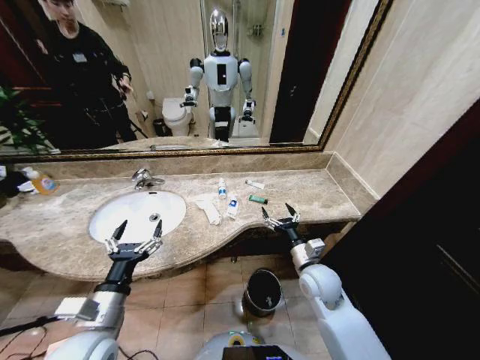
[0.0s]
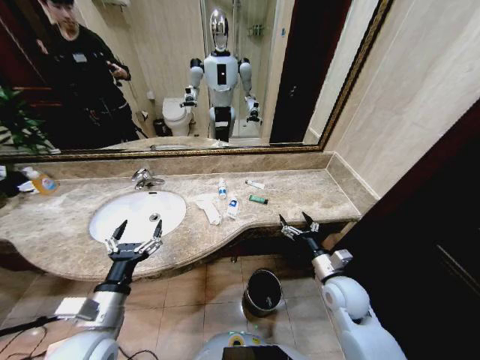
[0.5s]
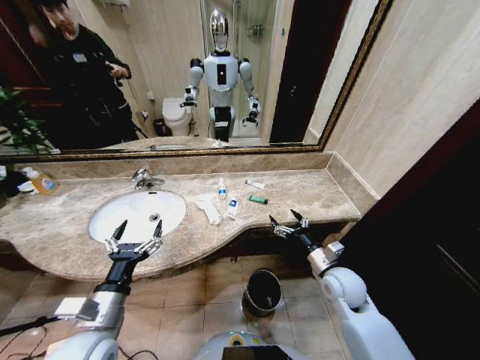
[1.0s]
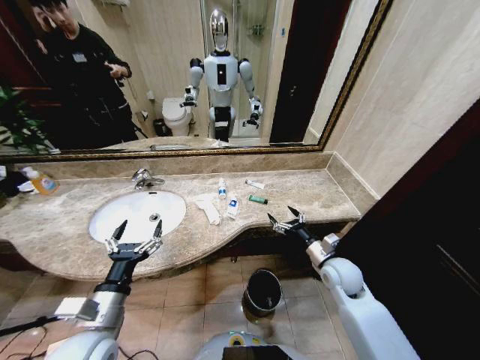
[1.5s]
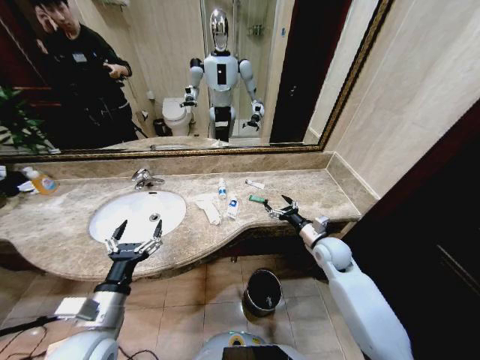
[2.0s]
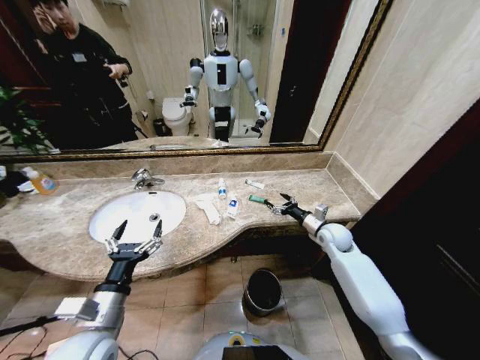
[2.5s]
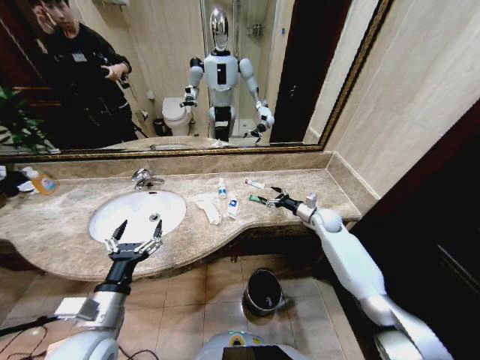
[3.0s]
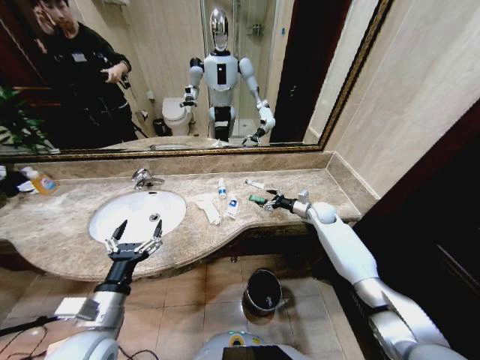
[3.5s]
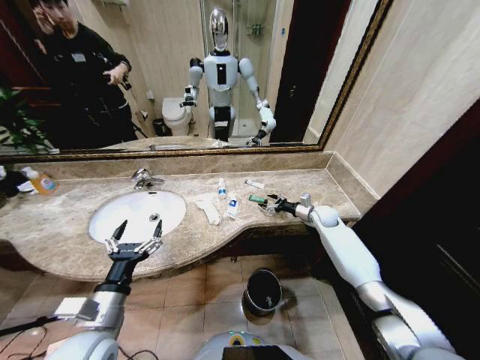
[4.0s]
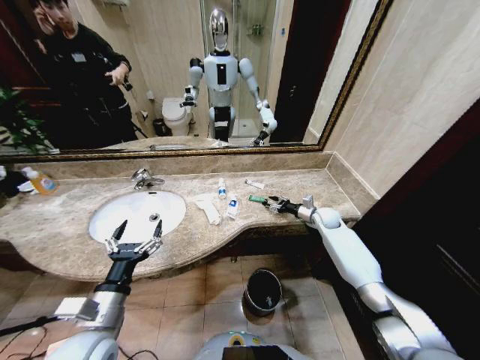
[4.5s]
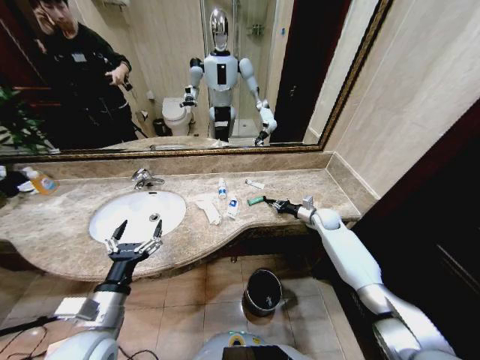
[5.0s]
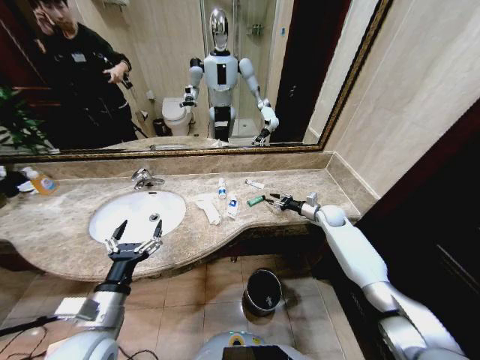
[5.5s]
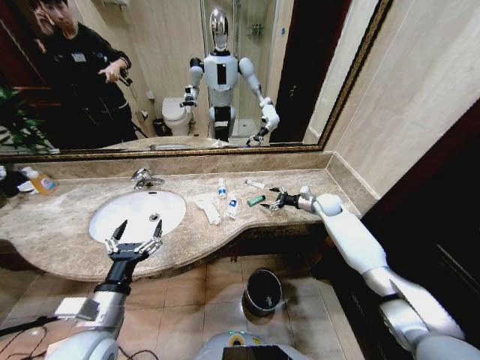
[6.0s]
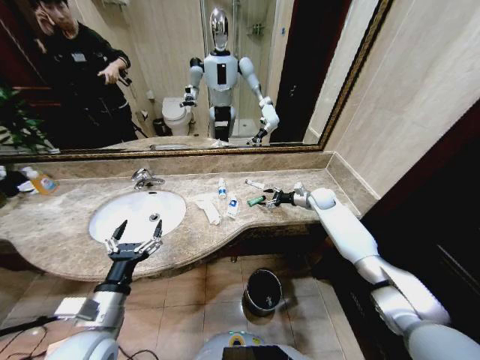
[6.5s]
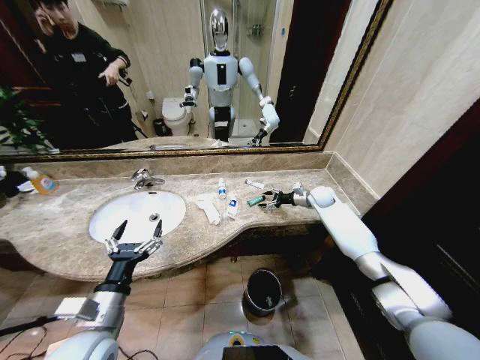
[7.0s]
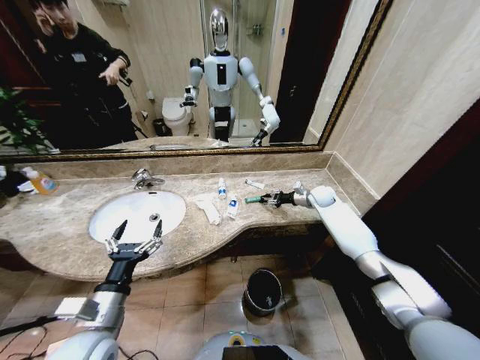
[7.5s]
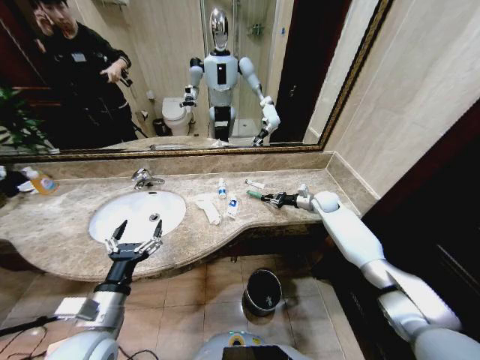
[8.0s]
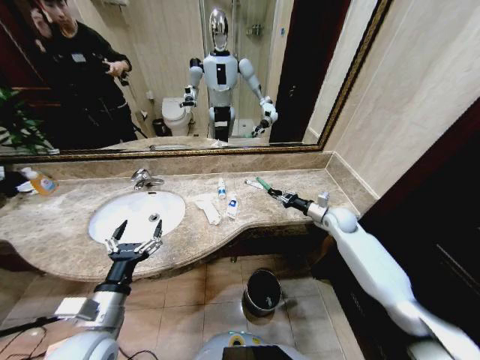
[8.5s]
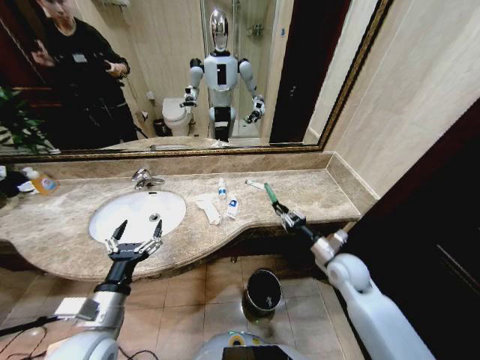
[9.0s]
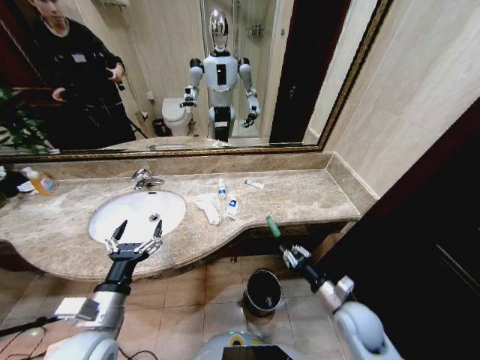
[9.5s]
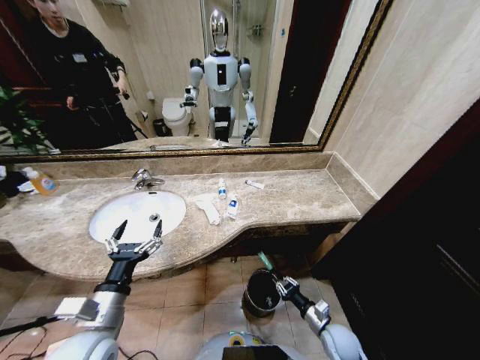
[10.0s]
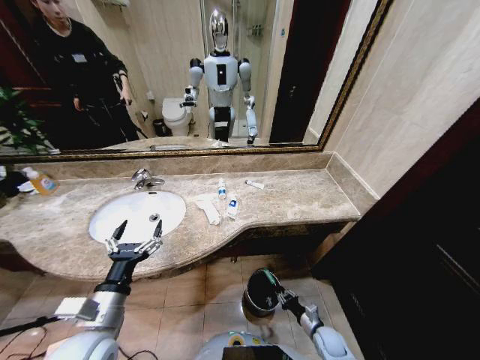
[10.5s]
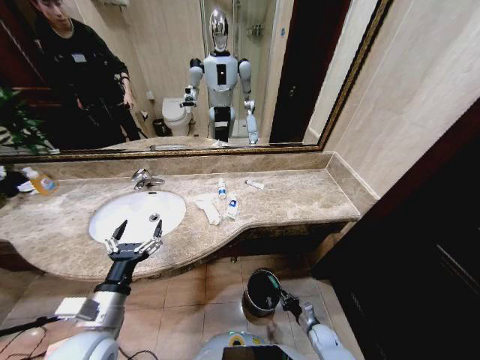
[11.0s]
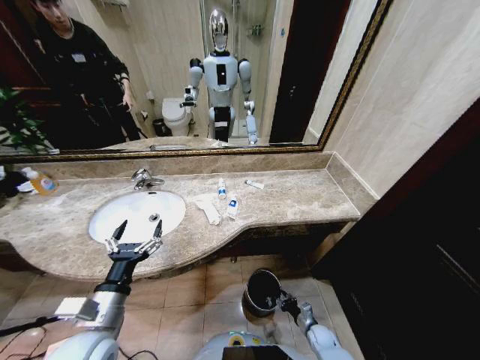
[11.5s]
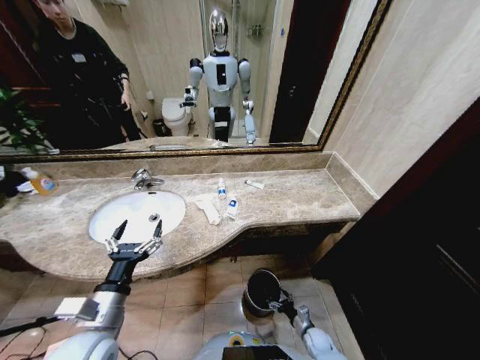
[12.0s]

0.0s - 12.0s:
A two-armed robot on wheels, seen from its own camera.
Task of the whole recording: Pick up the trash from the sink and place it in the trash bin.
2.0s - 4.0s: The right gripper travels forward by roughly 15 cm.
4.0s - 6.0s: The right gripper ends up some 5 cm from where it was, and closes, then opens again.
6.0s - 8.0s: The right gripper closes its fingers.
8.0s - 10.0s: The right gripper is displaced backward and downward by about 40 cm.
10.0s - 12.0s: The right gripper moves downward, some 15 cm, and opens up.

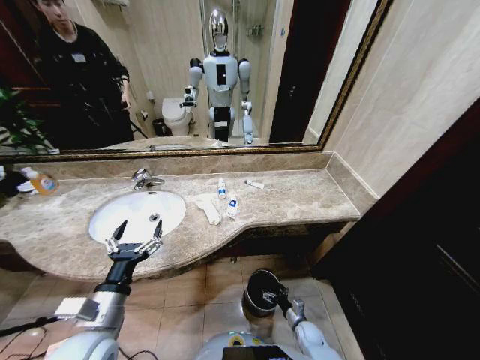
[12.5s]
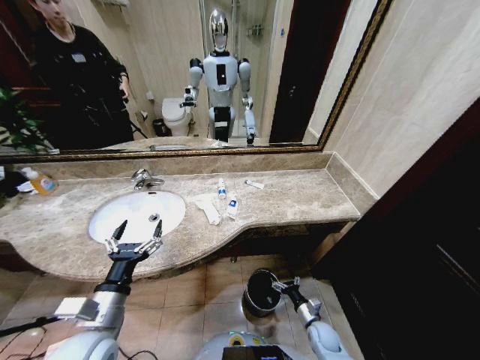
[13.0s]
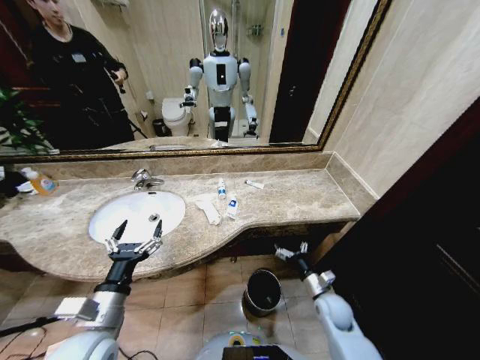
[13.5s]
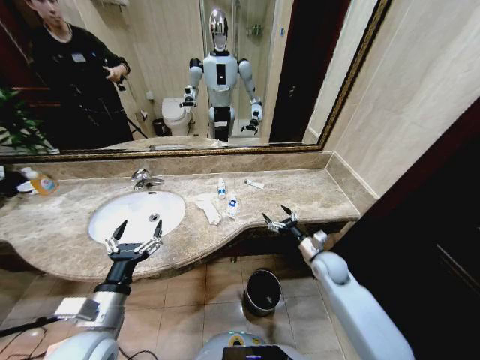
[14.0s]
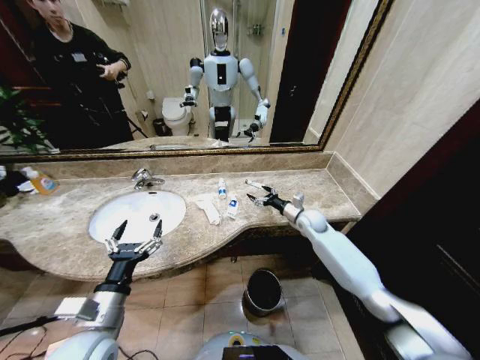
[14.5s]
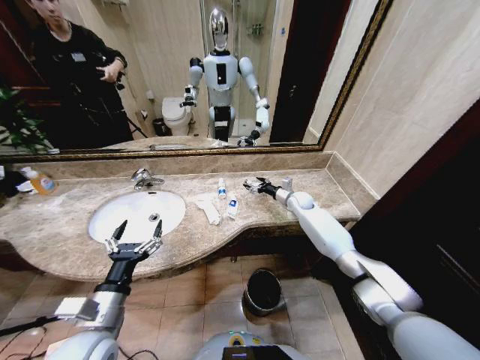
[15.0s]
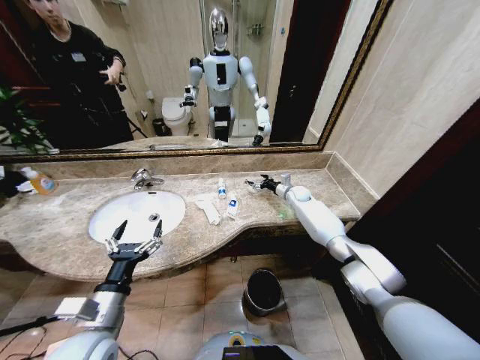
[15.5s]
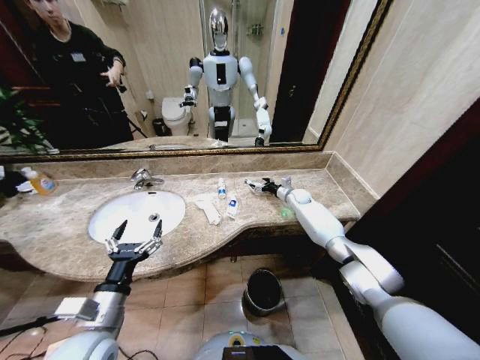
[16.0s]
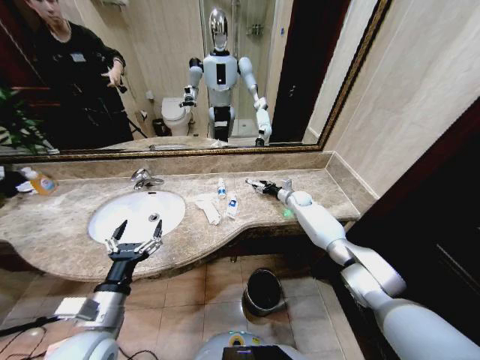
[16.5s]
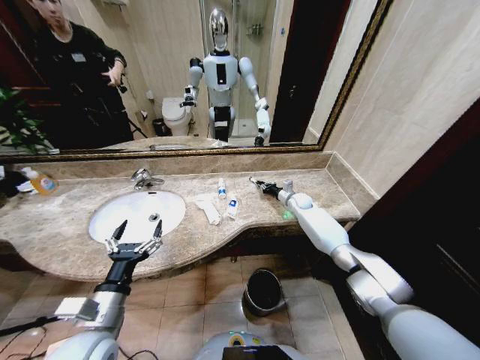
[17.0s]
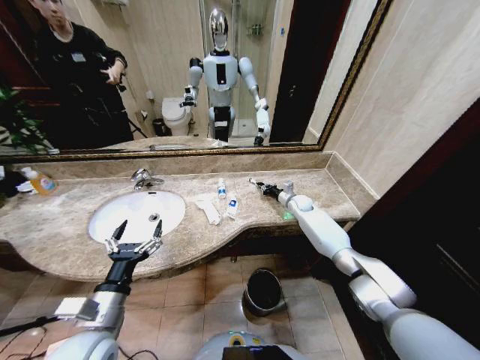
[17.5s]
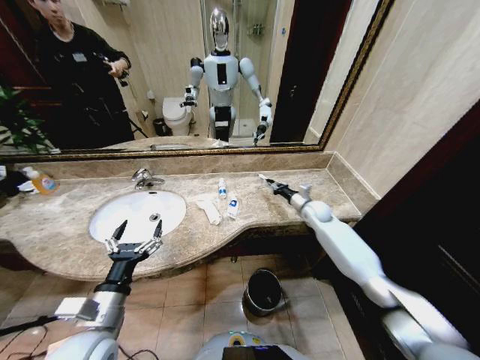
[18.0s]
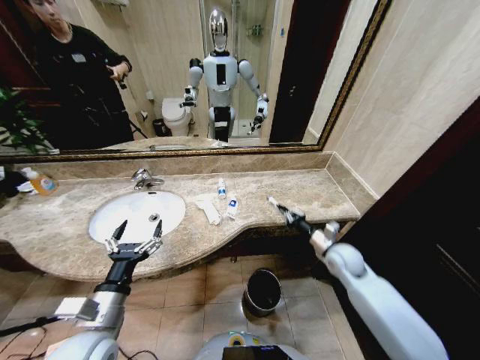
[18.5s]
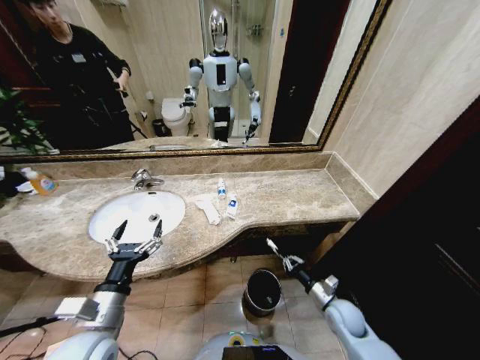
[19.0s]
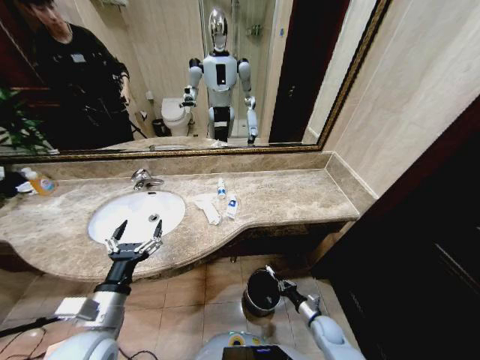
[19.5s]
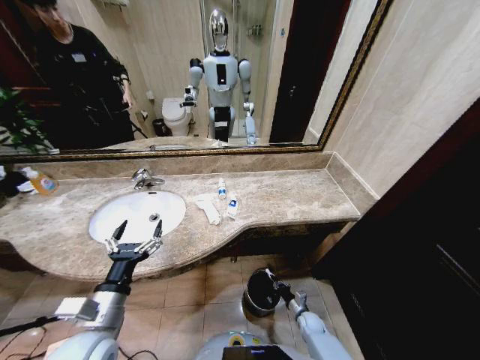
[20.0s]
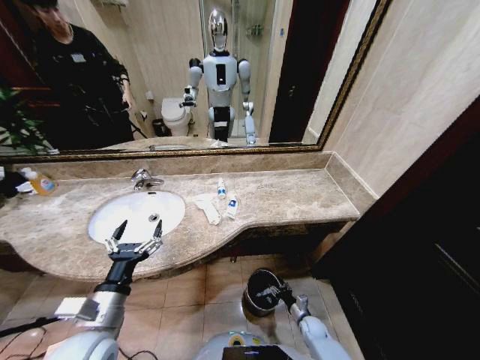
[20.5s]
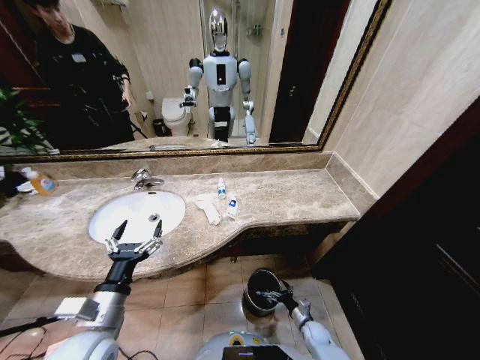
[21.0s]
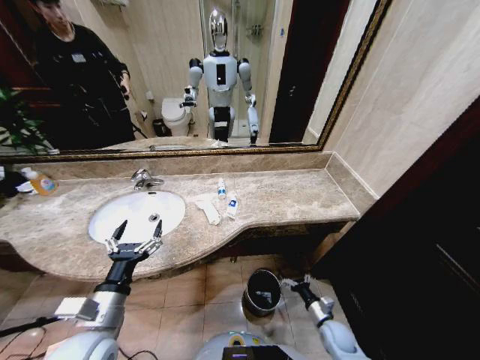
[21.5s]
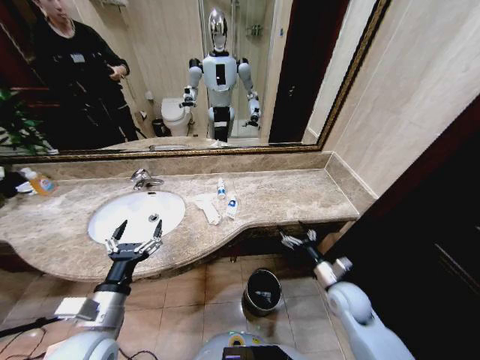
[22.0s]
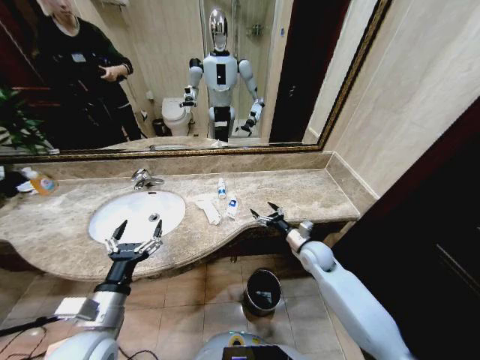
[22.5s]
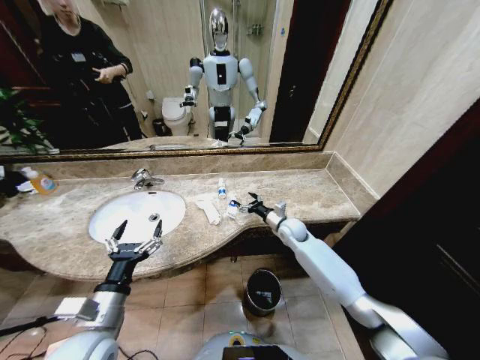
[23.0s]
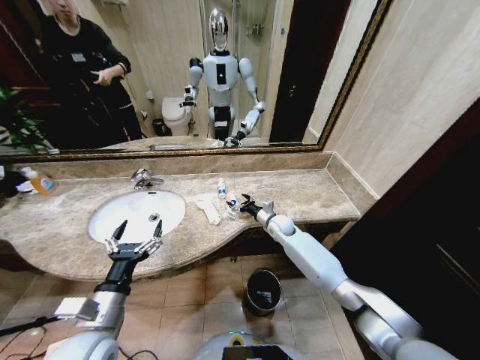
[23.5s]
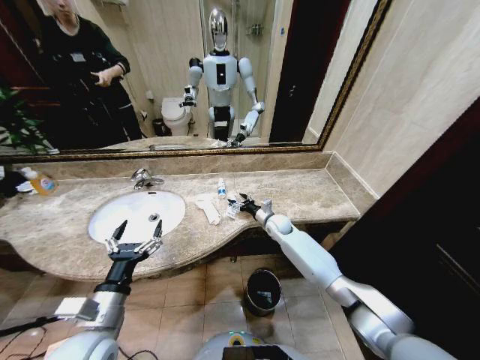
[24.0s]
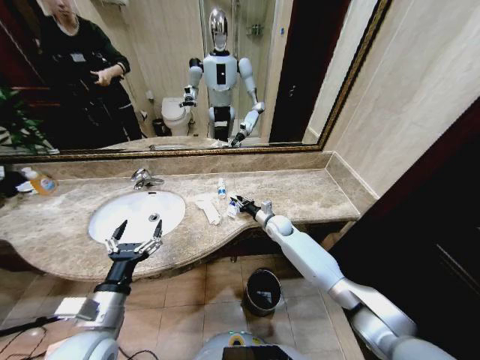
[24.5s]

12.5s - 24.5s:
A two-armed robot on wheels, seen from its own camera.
Task of the whole recording: Pick up the trash from the sink and place it in the trash bin.
12.5s - 14.5s: The right gripper travels upward and forward by roughly 40 cm.
14.5s - 16.5s: The right gripper goes about 15 cm forward, and closes up.
16.5s - 18.5s: The right gripper travels backward by about 30 cm, and closes.
18.5s - 20.5s: The right gripper shifts about 35 cm downward, and opens up.
20.5s - 22.5s: The right gripper moves upward and forward, approximately 35 cm, and opens its fingers.
22.5s - 24.5s: The right gripper is displaced forward and to the left by some 15 cm, and closes its fingers.

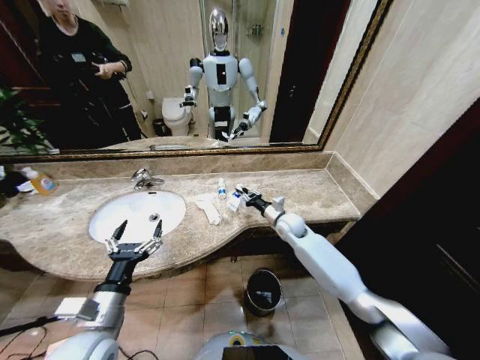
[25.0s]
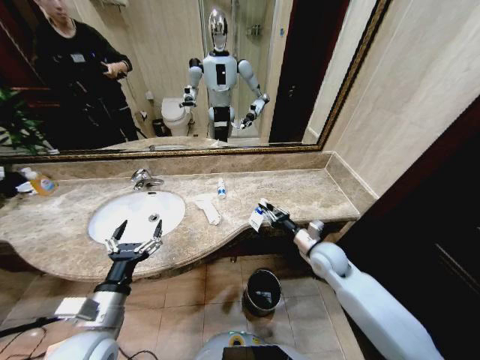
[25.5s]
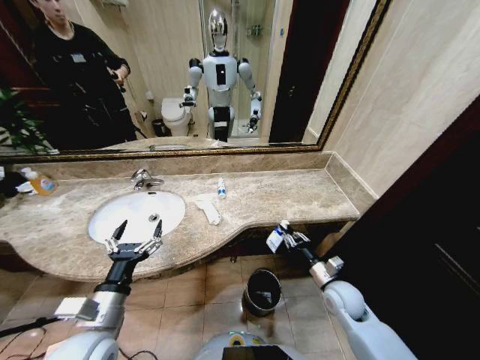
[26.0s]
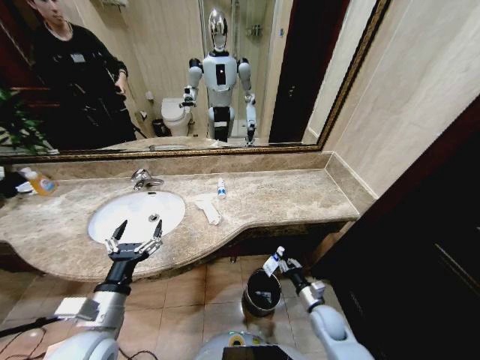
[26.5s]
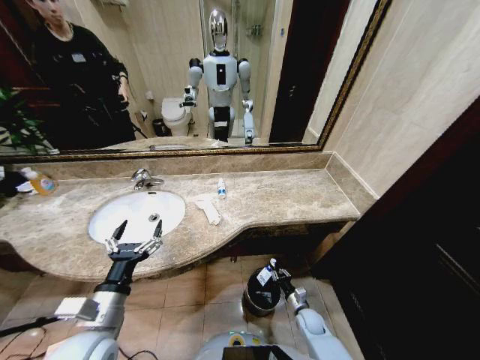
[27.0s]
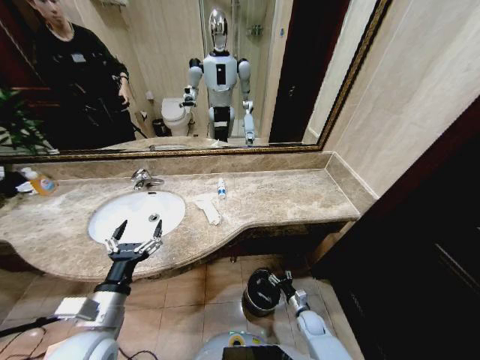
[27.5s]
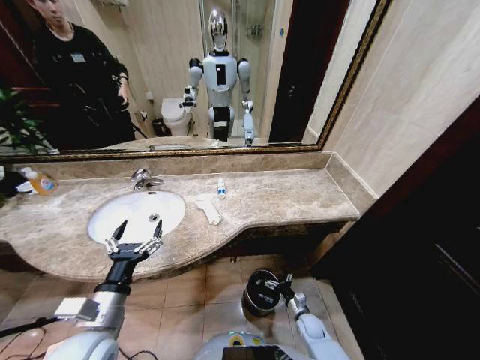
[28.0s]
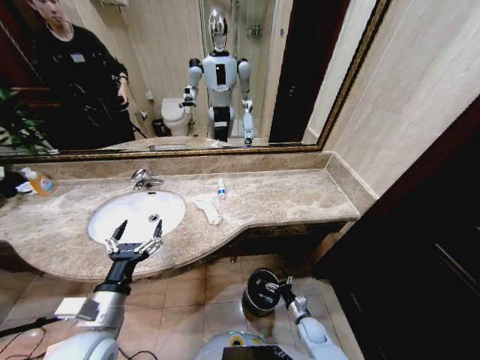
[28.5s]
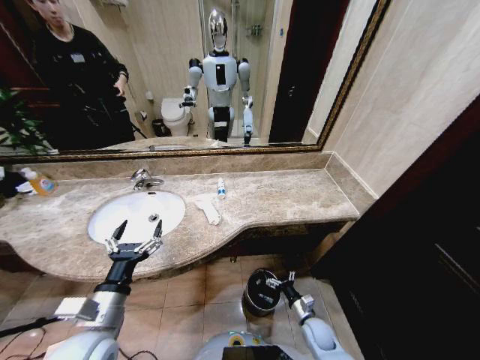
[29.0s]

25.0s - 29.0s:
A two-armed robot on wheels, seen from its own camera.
Task of the whole recording: Pick up the trash from the sink and place it in the trash bin.
25.0s - 27.0s: The right gripper is displaced downward and backward by approximately 35 cm.
27.0s - 29.0s: The right gripper changes place by roughly 5 cm, and opens up.
